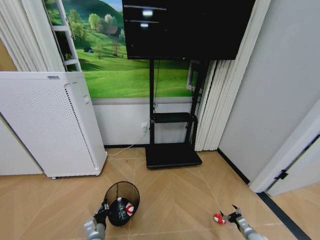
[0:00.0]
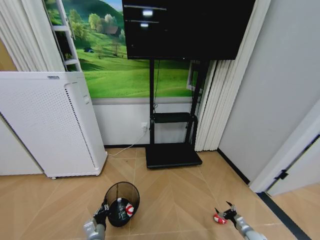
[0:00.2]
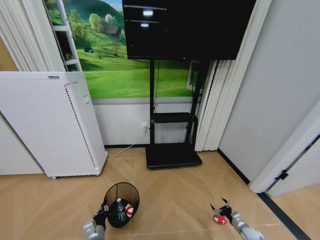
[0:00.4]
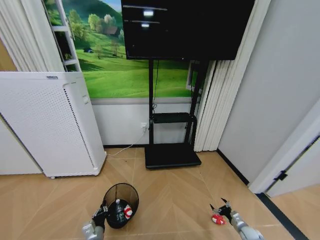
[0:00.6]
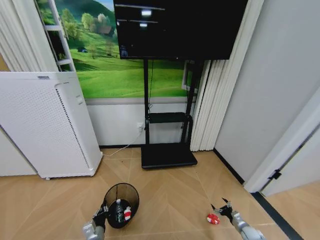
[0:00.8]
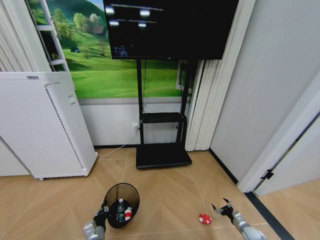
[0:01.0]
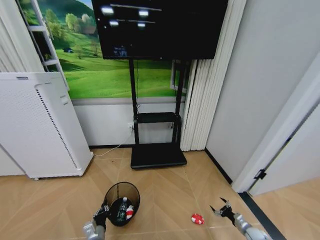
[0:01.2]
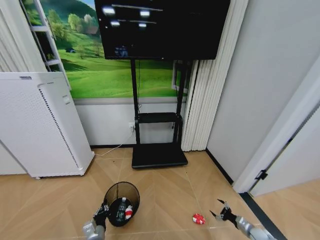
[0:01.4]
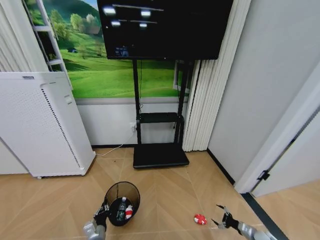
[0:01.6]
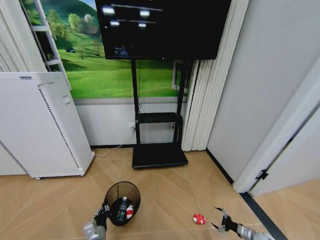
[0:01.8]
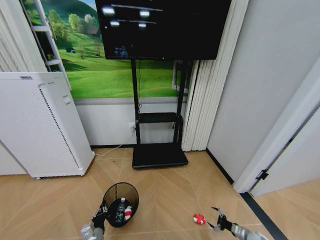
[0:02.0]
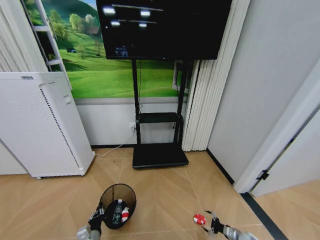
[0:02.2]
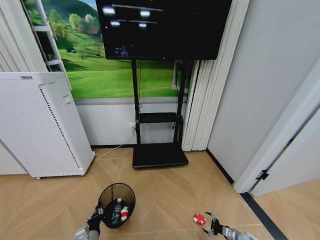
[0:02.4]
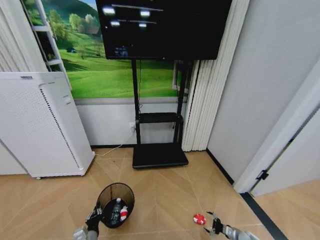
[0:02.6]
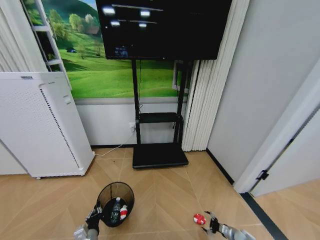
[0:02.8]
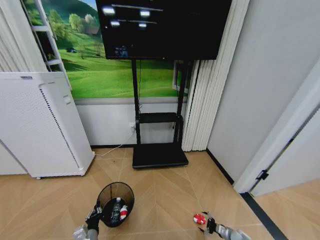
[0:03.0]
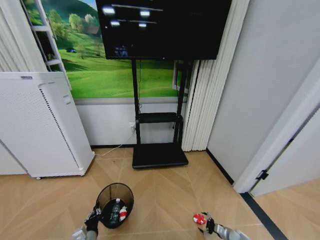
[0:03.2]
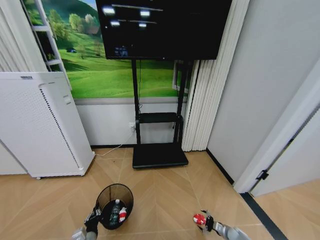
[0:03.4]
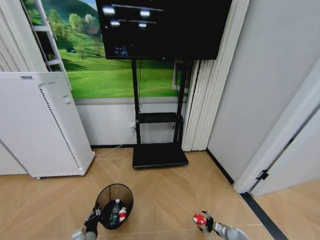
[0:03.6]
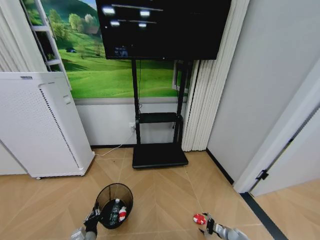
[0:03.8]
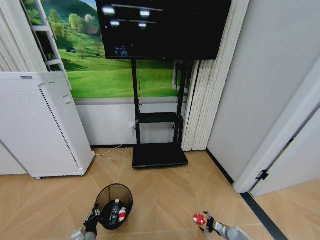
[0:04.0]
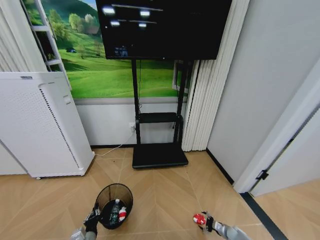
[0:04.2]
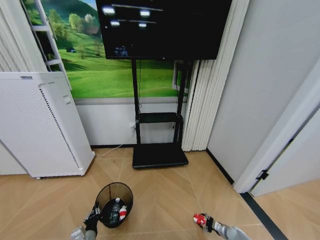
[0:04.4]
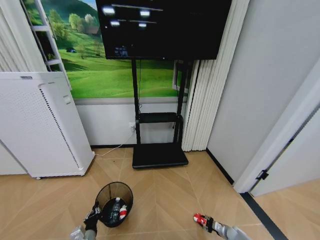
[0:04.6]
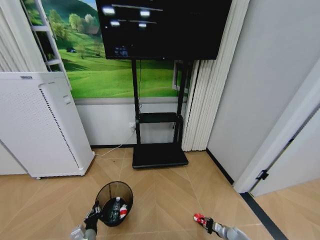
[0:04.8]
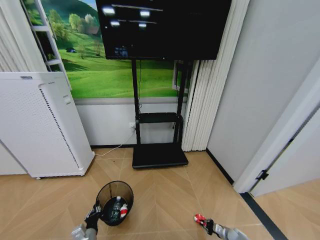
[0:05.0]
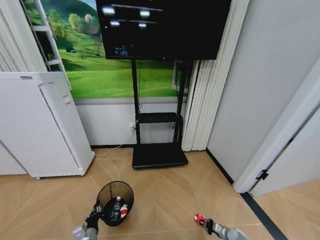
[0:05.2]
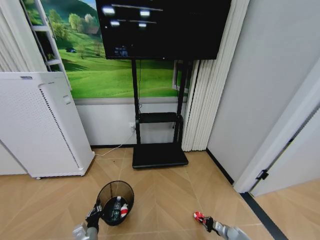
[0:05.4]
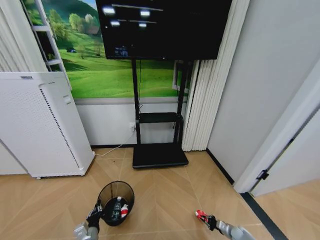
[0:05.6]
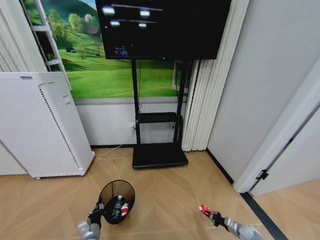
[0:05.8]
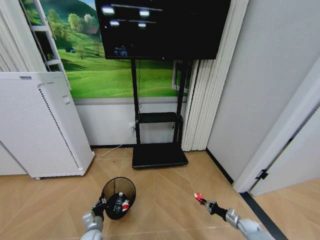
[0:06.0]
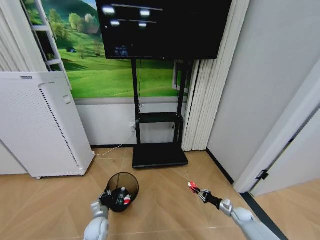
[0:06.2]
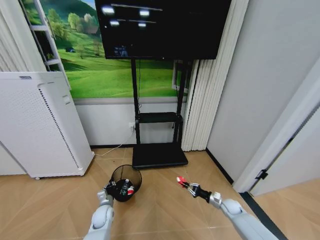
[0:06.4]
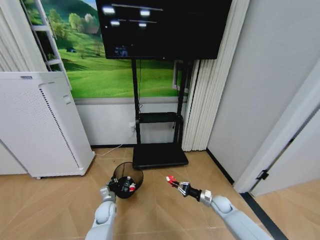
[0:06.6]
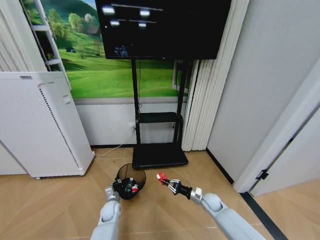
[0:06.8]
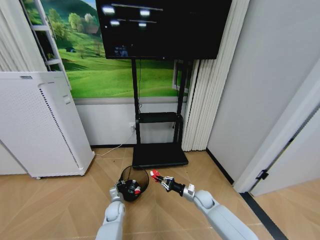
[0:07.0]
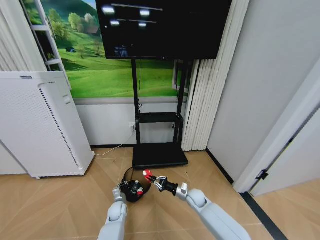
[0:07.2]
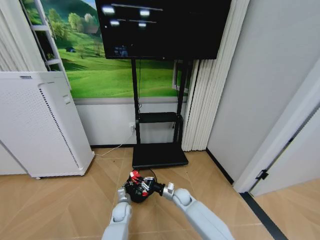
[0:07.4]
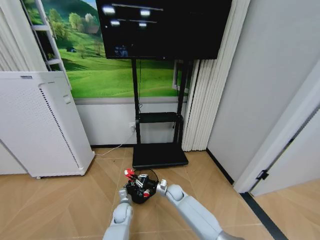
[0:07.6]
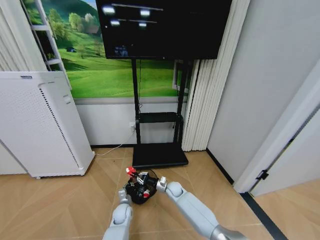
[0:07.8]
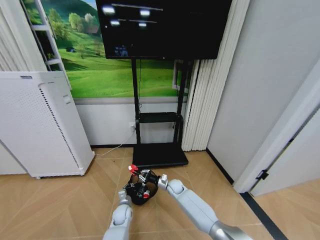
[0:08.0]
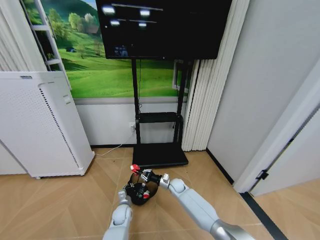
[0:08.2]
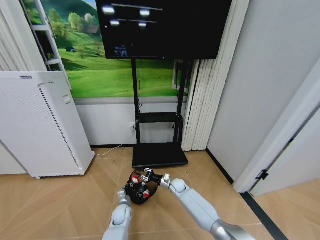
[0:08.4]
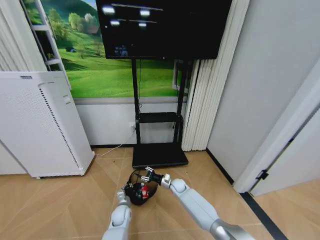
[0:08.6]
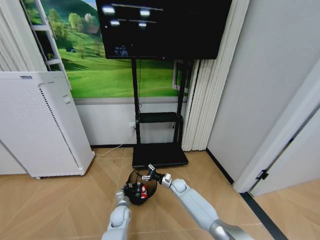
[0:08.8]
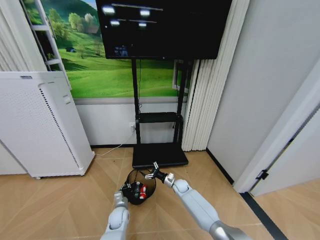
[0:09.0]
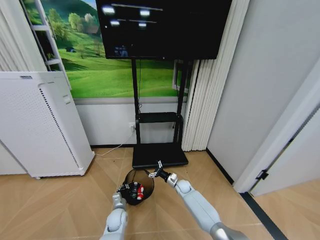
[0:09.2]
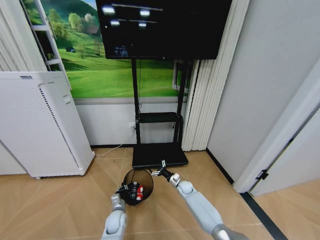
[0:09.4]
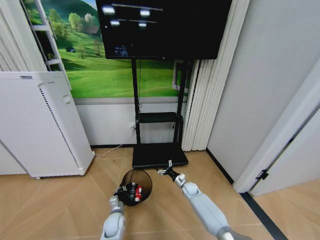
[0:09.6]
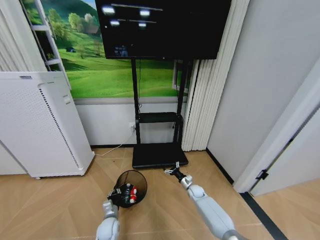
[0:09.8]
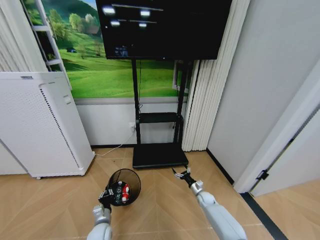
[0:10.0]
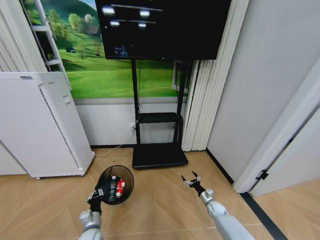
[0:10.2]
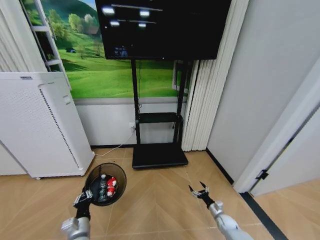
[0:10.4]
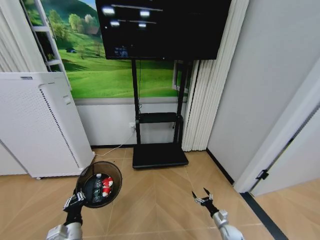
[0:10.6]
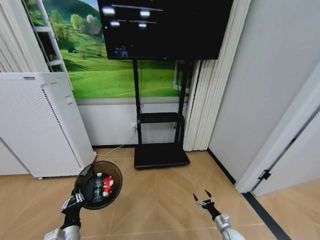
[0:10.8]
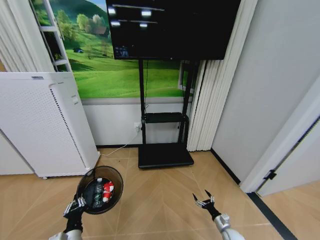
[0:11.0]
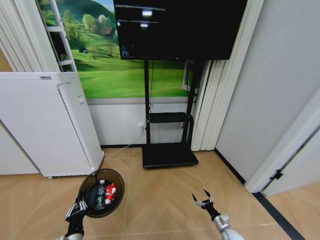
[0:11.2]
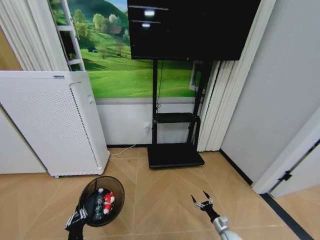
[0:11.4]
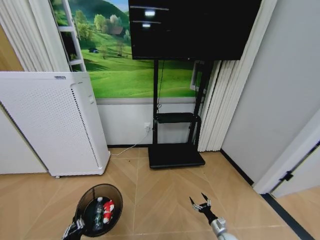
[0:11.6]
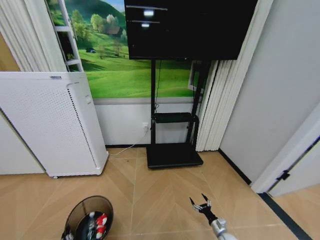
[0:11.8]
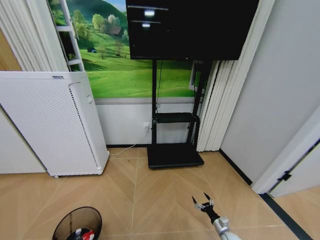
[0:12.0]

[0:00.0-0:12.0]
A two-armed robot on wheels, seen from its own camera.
Task of the whole recording: Pick up the trash bin and place the garbage on the floor into it.
0:01.6 to 0:03.0: The right gripper heads to the left and downward, covering approximately 10 cm.
0:03.0 to 0:04.4: There are only small adjustments of the grippers.
0:04.4 to 0:06.0: The right gripper moves upward and to the right, about 10 cm, and closes its fingers; the left gripper moves forward, approximately 5 cm.
0:06.0 to 0:07.6: The right gripper shifts roughly 40 cm to the left. Meanwhile the left gripper heads forward and to the right, covering about 15 cm.
0:07.6 to 0:09.0: The right gripper travels forward and to the right by roughly 10 cm, and opens its fingers.
0:09.0 to 0:10.4: The right gripper heads to the right, backward and downward, covering roughly 30 cm. Meanwhile the left gripper moves backward, to the left and upward, approximately 20 cm.
0:10.4 to 0:12.0: The right gripper heads backward, covering roughly 5 cm; the left gripper moves backward, downward and to the left, about 15 cm.

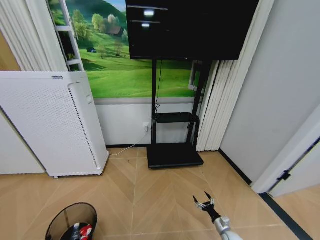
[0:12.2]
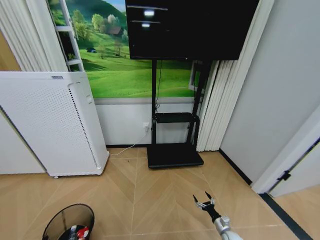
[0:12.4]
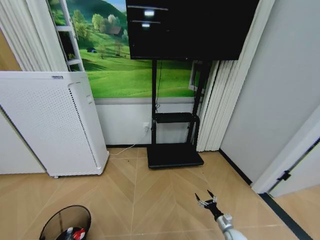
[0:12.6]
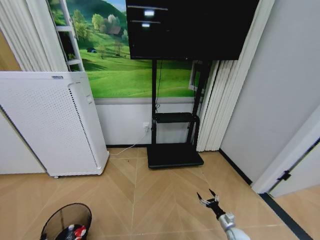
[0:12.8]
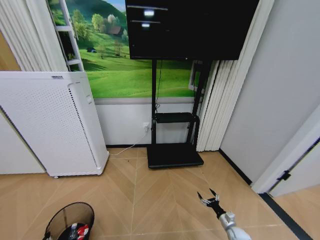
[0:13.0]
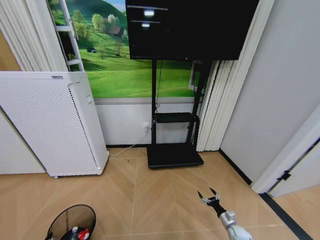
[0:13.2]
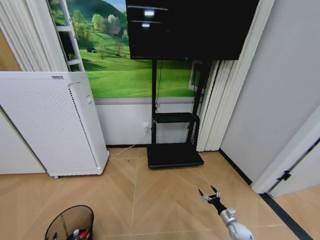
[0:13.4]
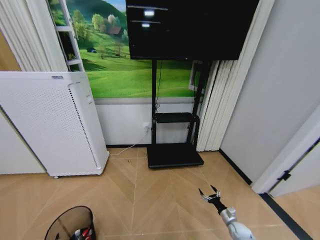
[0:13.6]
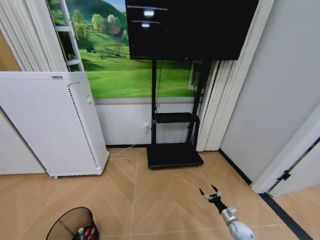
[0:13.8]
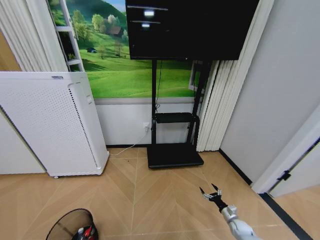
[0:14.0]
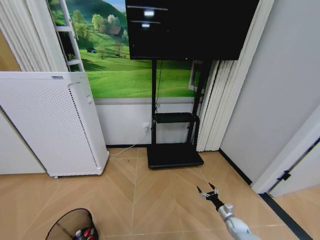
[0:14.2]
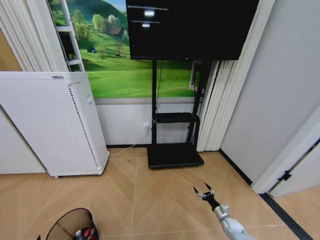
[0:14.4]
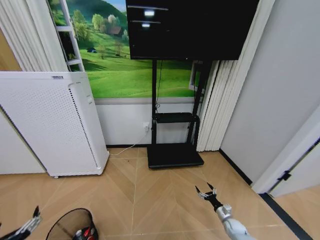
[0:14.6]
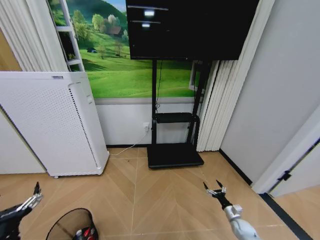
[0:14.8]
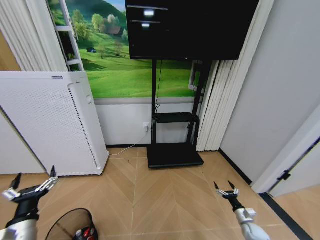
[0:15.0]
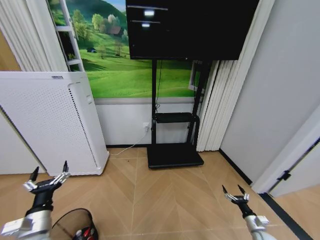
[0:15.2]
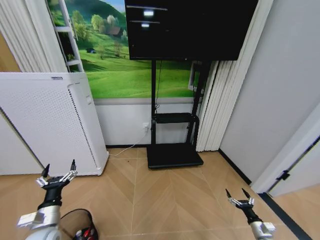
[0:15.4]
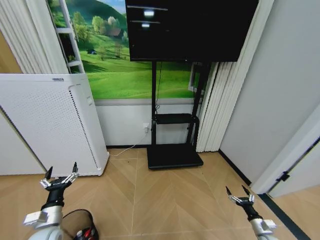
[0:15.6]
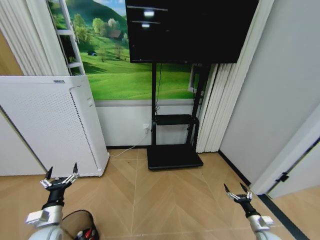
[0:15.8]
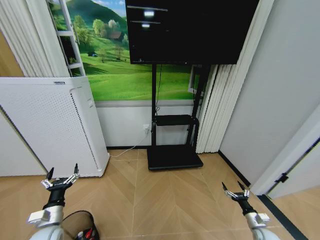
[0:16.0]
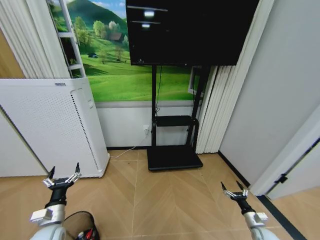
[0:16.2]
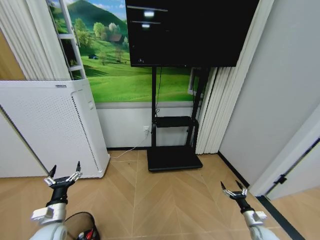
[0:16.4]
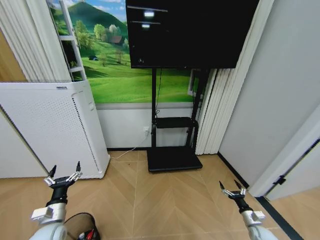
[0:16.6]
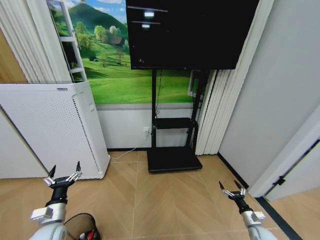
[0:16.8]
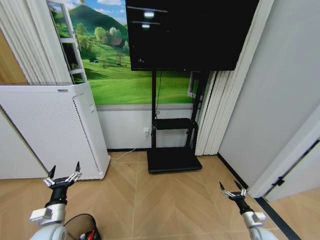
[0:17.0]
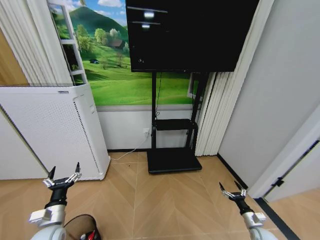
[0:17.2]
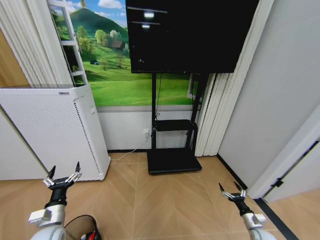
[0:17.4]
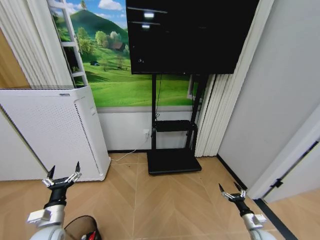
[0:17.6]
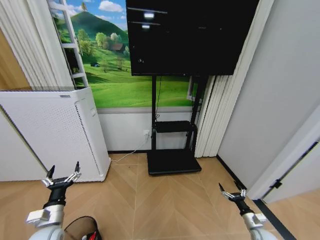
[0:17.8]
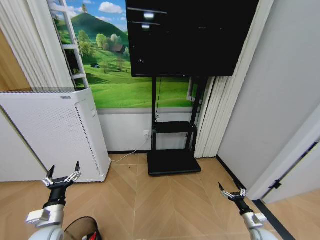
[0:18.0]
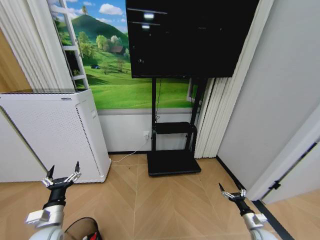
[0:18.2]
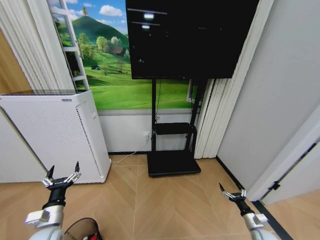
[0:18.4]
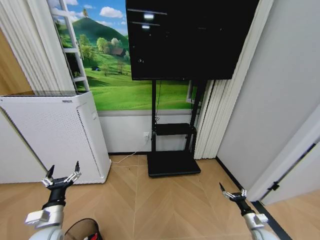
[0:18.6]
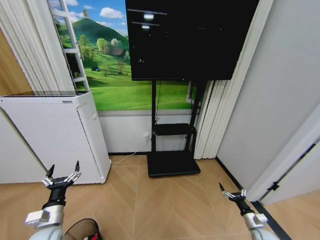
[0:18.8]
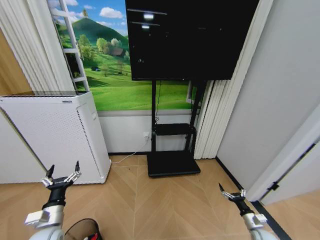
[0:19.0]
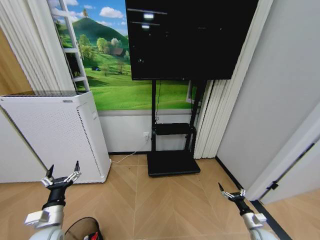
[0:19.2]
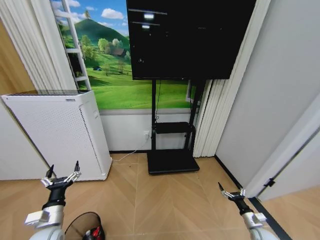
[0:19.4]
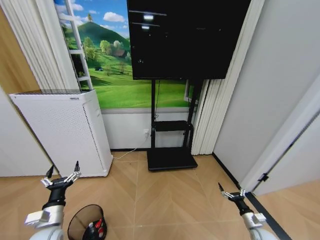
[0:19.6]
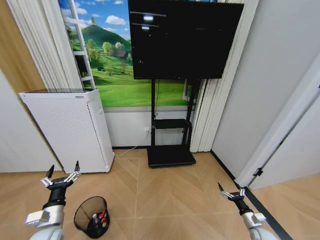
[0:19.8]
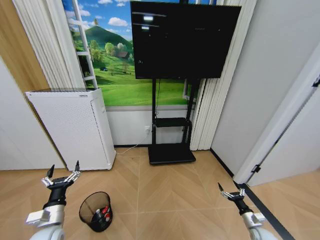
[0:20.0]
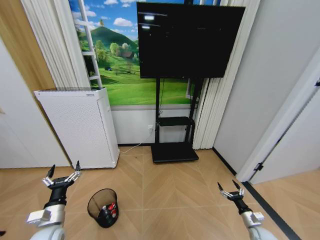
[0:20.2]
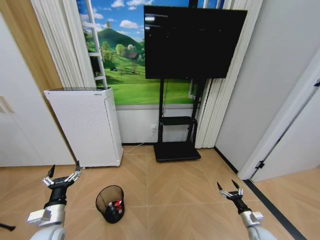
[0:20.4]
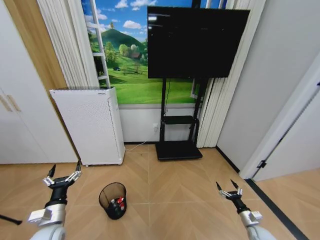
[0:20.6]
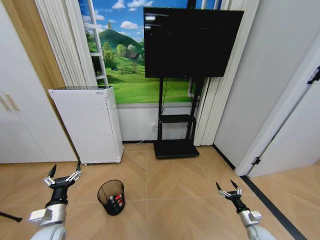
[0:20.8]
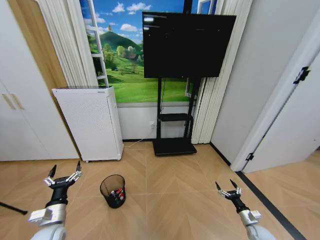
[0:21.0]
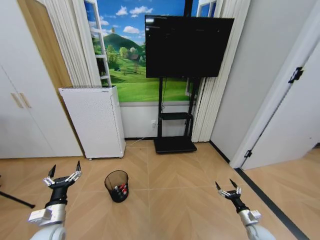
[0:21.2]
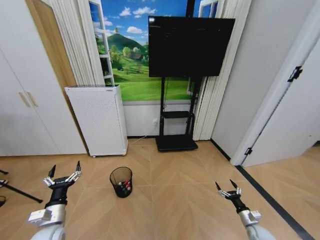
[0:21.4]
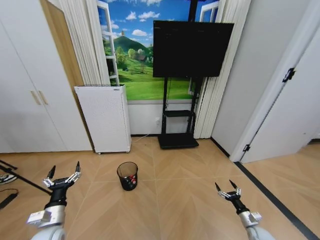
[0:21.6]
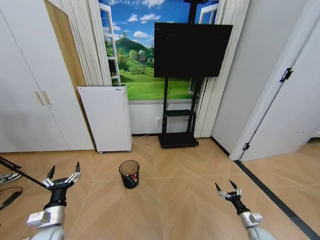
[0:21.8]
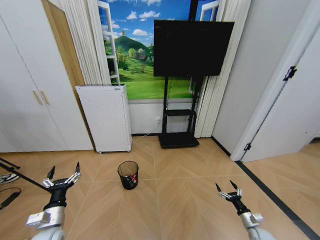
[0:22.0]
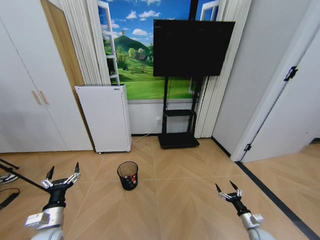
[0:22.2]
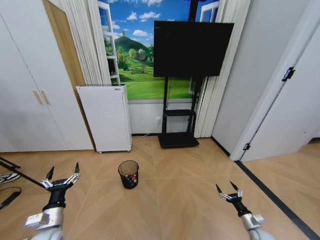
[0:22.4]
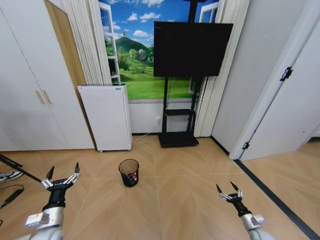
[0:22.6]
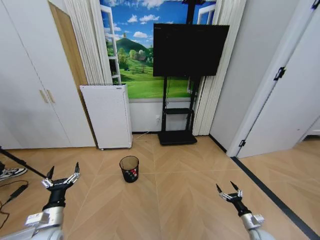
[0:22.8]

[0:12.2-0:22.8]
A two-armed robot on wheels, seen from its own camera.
Task of the whole recording: Pick up the trash bin and place the garbage on the floor into it.
0:12.2 to 0:13.8: The right gripper moves roughly 5 cm; the left gripper opens up.
0:13.8 to 0:15.2: The left gripper heads upward and forward, covering roughly 20 cm. The right gripper heads to the right and backward, covering some 10 cm.
0:15.2 to 0:16.8: The left gripper shifts by about 5 cm.
0:16.8 to 0:18.2: The grippers move only a little.
